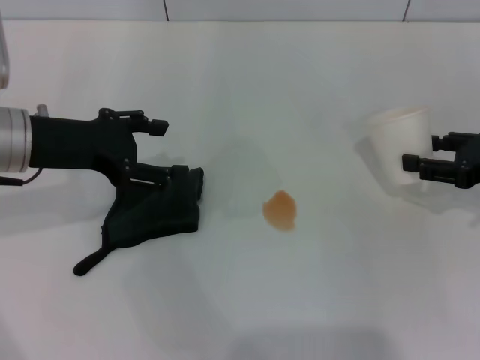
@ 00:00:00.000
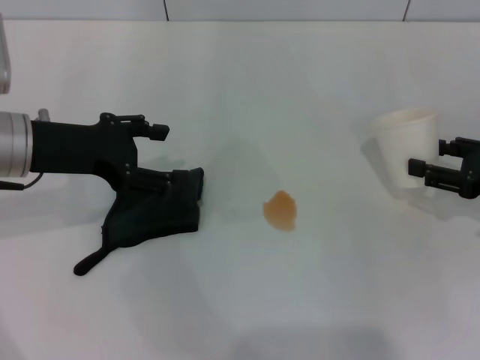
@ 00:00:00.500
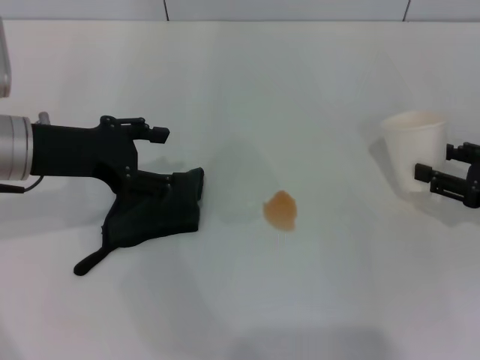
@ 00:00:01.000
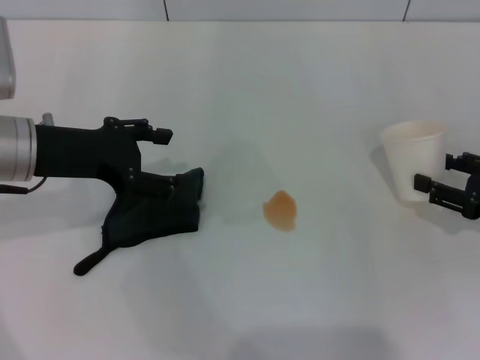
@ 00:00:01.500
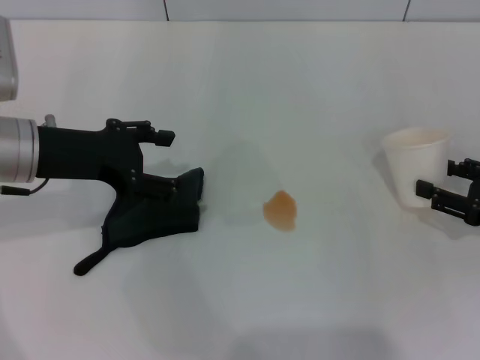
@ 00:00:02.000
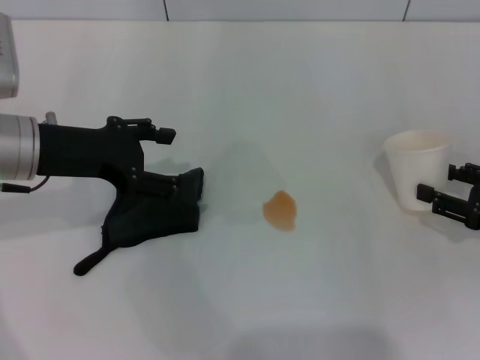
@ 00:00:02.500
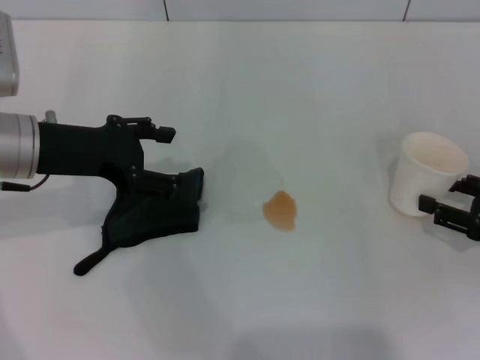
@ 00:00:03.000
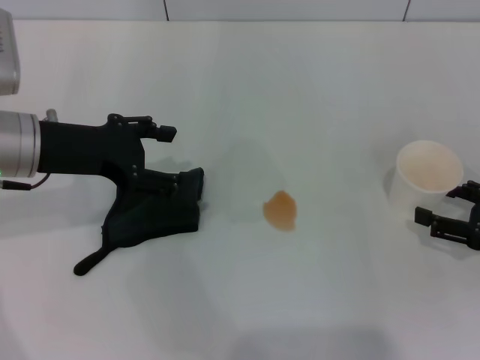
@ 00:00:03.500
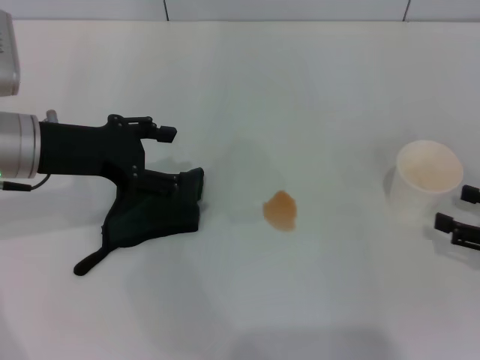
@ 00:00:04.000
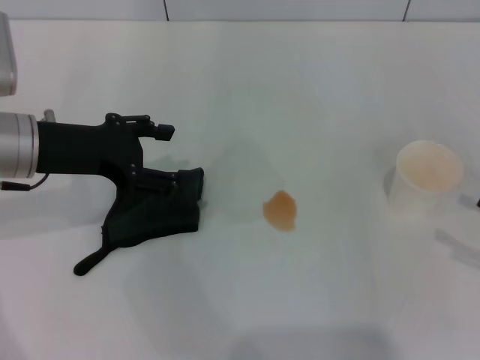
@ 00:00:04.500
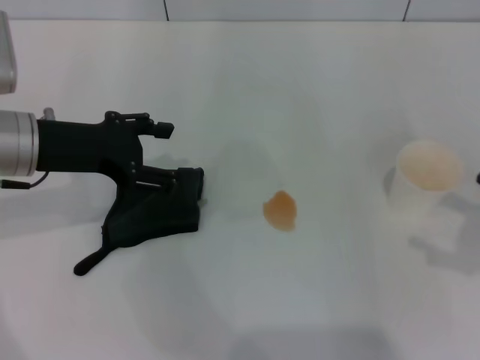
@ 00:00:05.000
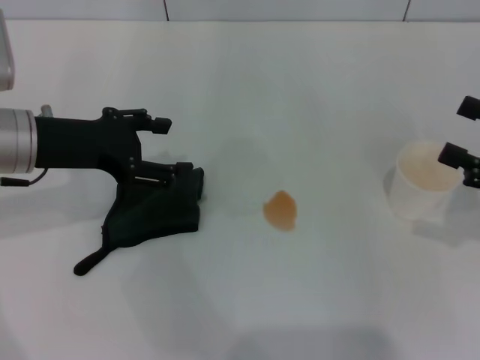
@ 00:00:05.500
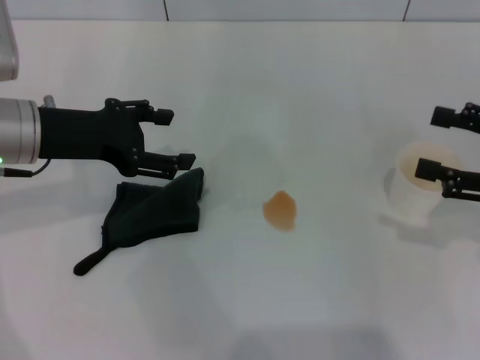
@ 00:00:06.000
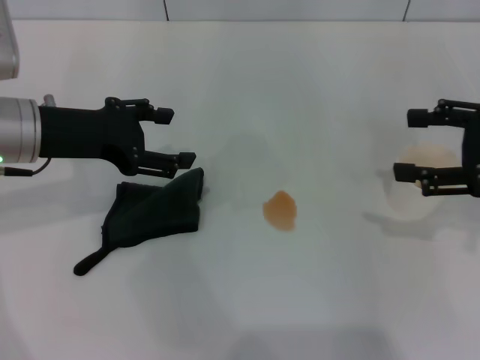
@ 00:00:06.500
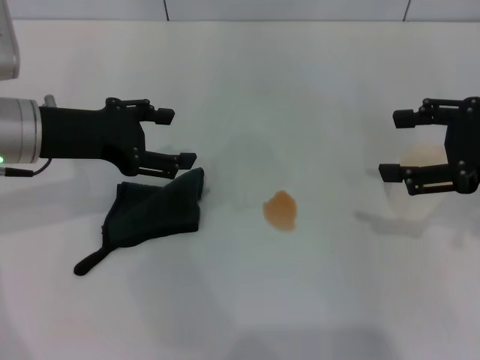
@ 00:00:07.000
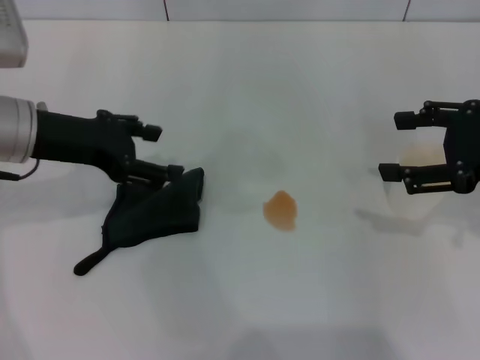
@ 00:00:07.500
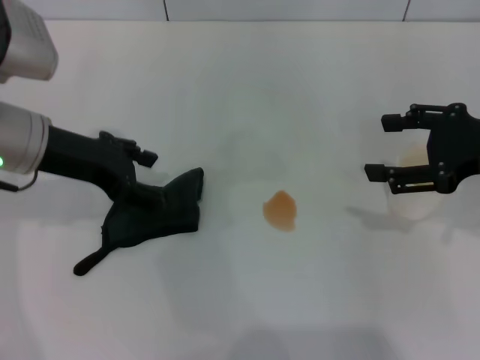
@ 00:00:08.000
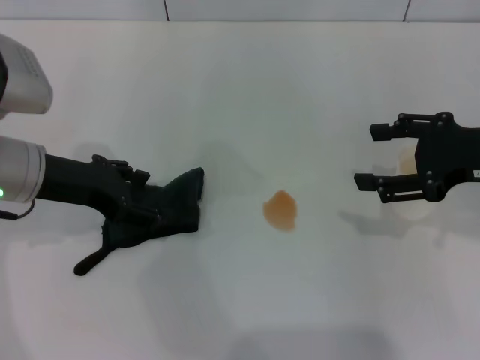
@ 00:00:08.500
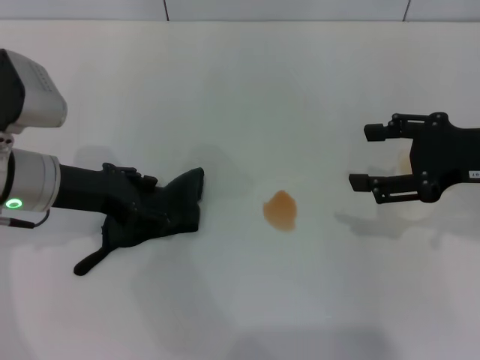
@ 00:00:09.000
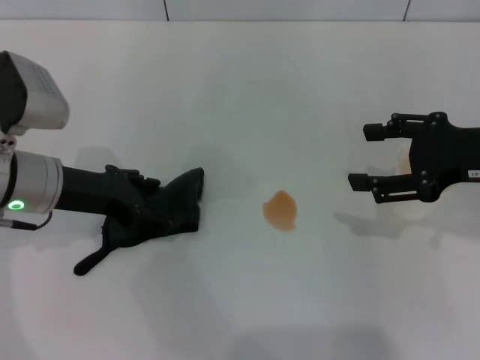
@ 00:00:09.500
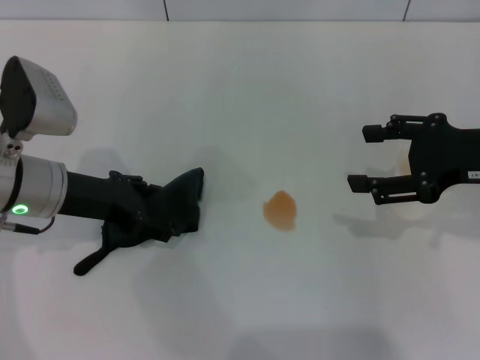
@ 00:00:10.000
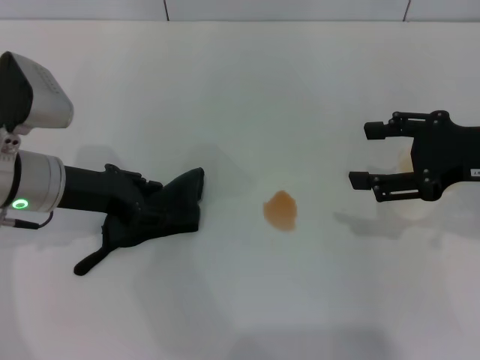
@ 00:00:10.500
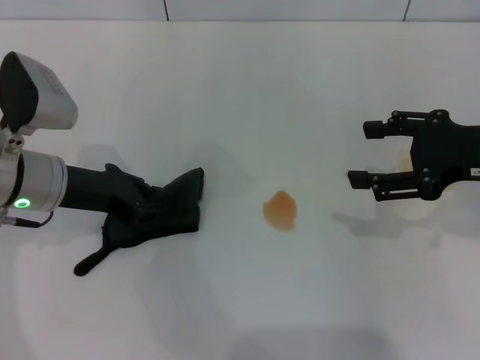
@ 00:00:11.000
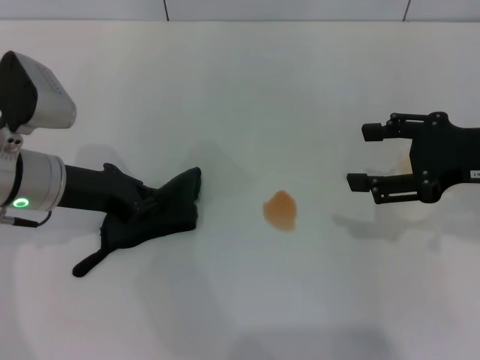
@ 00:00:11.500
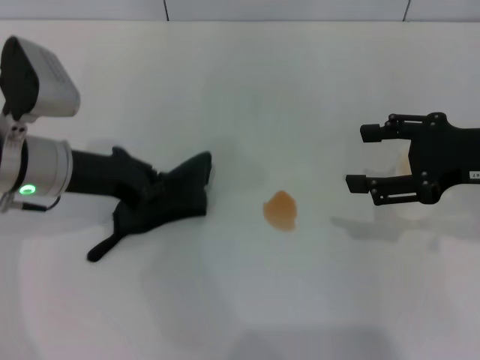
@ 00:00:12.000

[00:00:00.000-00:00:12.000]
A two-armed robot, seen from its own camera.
Step, 00:00:00.000 to 00:00:03.500: Stand the paper cup upright with the right gripper.
Step, 00:00:04.500 to 00:00:11.500: Grasp the rag with the left gripper.
00:00:00.000 to 00:00:02.000: The right gripper heads downward, covering roughly 5 cm.
00:00:02.000 to 00:00:04.000: The right gripper opens.
00:00:04.000 to 00:00:06.000: The right gripper moves upward, roughly 10 cm.
00:00:06.000 to 00:00:08.000: The right gripper heads to the left, covering approximately 5 cm.
00:00:08.000 to 00:00:10.000: The left gripper goes some 5 cm downward.
00:00:10.000 to 00:00:12.000: The left gripper closes its fingers.

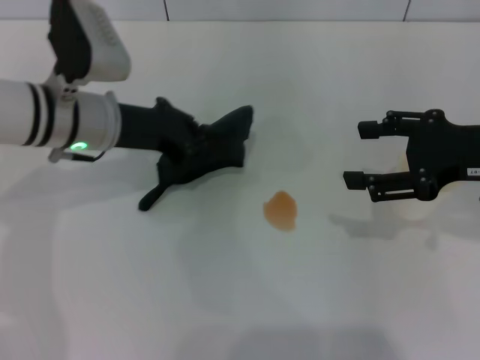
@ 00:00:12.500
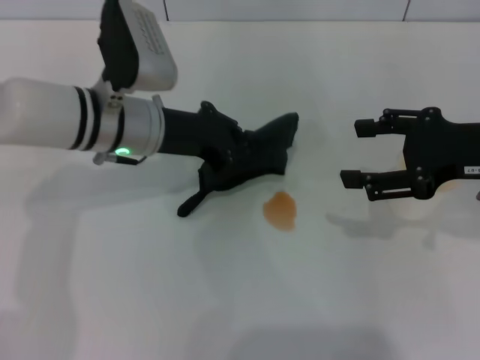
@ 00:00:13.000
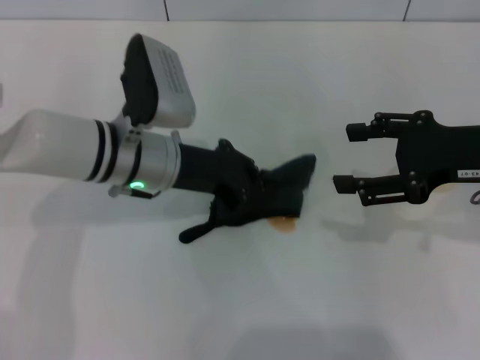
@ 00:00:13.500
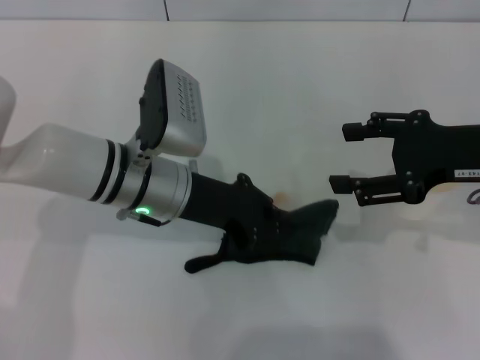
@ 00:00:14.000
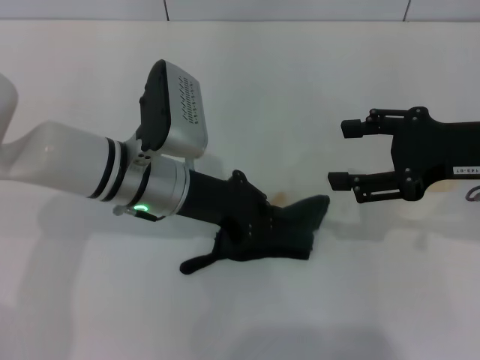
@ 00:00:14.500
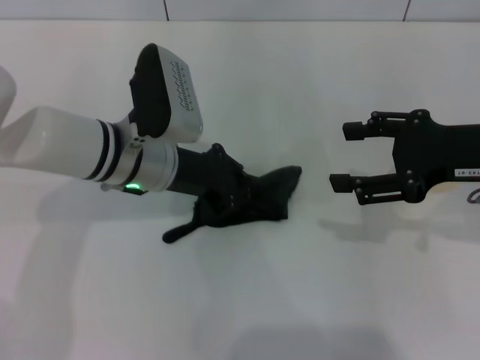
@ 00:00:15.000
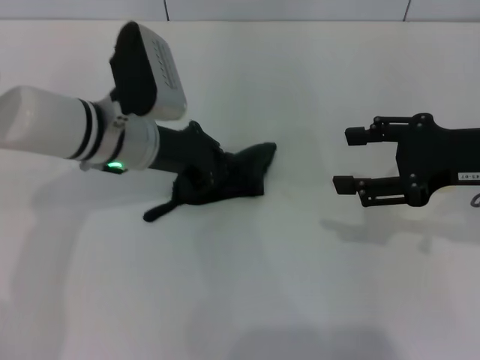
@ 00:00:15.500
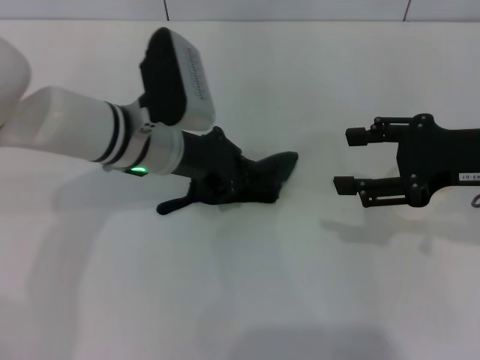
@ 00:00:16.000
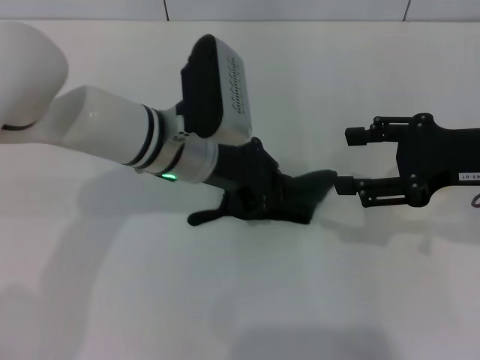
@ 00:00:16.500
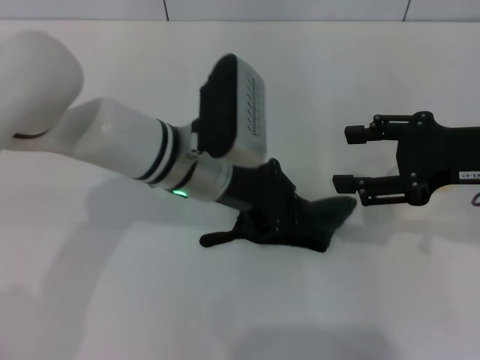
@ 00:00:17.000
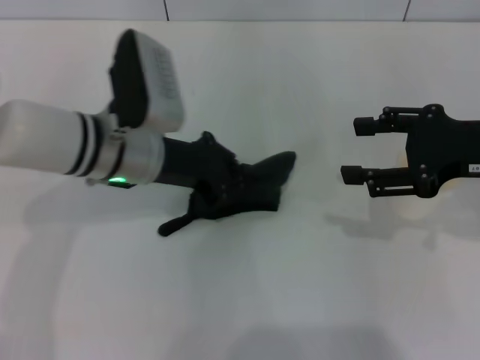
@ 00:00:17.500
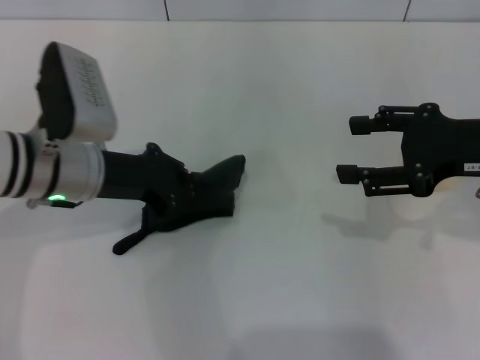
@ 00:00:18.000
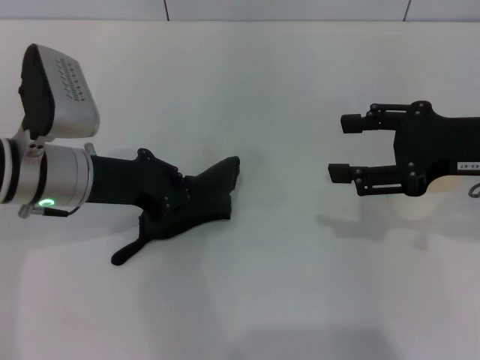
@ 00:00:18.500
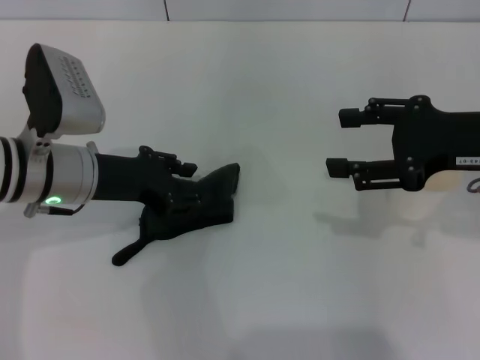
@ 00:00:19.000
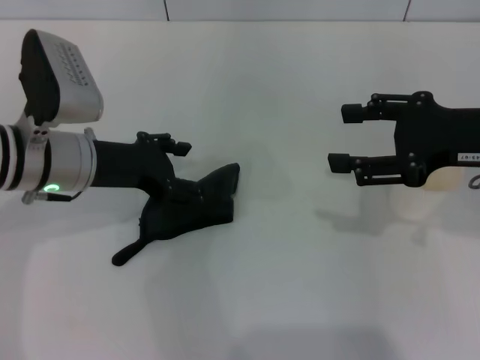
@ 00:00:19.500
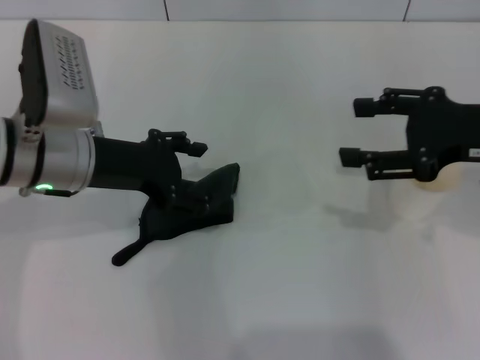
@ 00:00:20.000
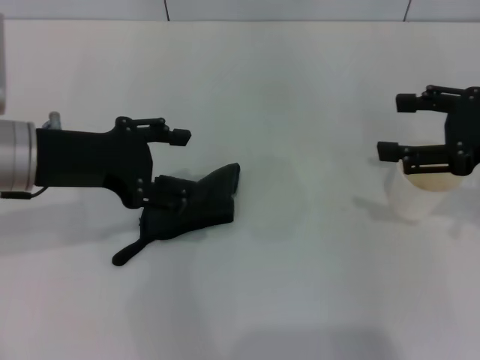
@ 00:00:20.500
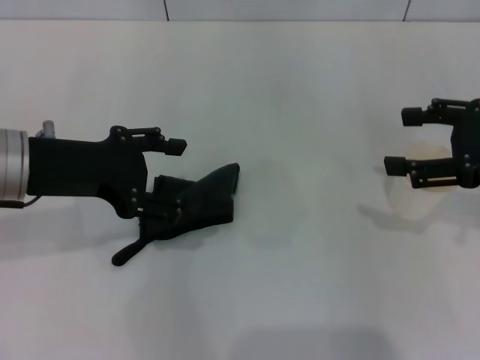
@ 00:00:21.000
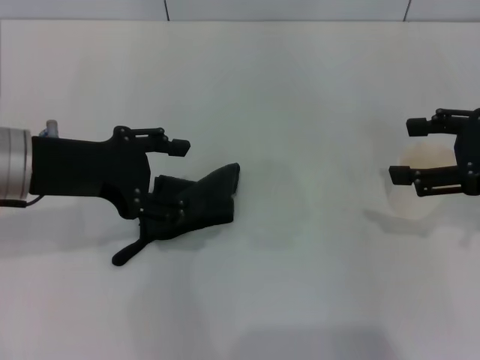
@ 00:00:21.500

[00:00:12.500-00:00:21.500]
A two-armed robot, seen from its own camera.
Step, 00:00:12.500 to 00:00:18.000: Wipe the stains off the table with the left gripper.
Step, 00:00:18.500 to 00:00:19.500: Place the rag on the table with the left gripper.
00:00:12.500 to 00:00:14.500: The left gripper heads to the right, covering about 5 cm.
00:00:17.000 to 00:00:19.500: The left gripper travels to the left by roughly 15 cm, and opens.
00:00:19.500 to 00:00:21.500: The left gripper travels upward by roughly 5 cm.
